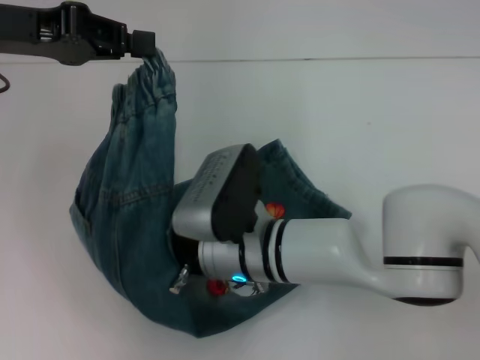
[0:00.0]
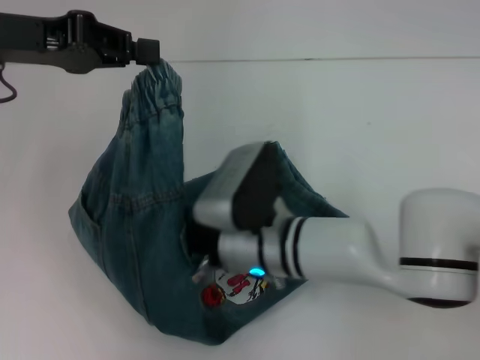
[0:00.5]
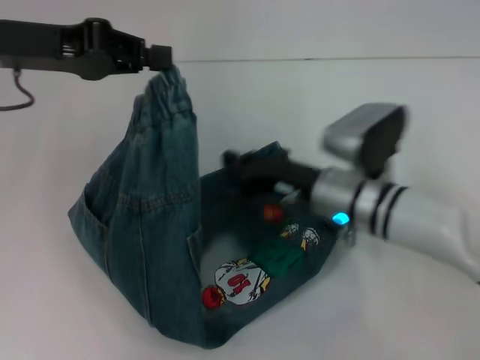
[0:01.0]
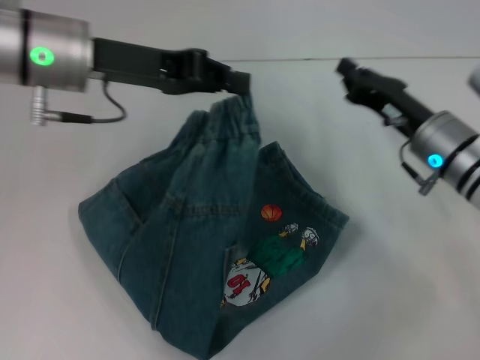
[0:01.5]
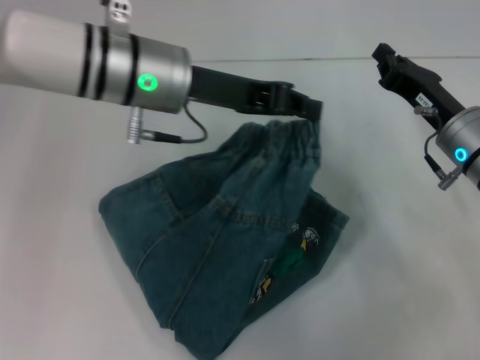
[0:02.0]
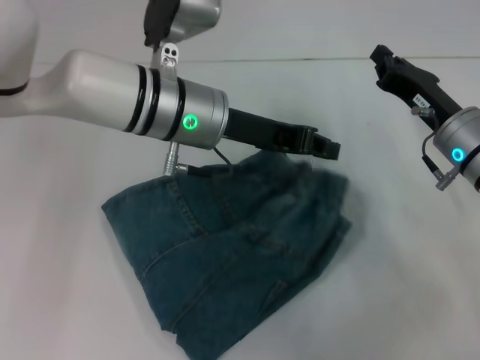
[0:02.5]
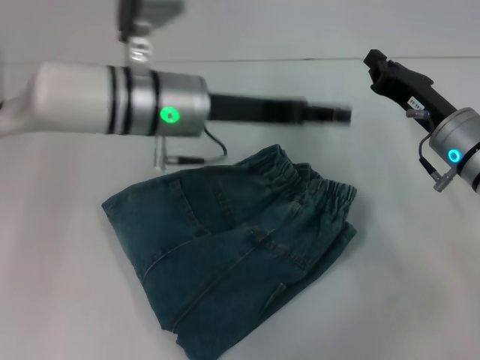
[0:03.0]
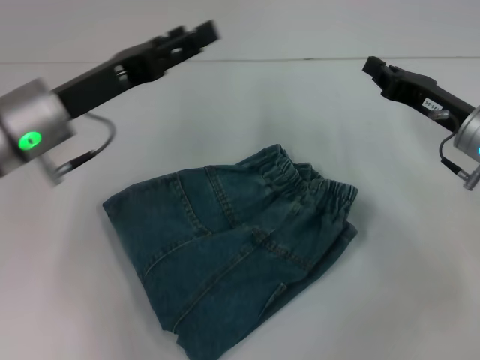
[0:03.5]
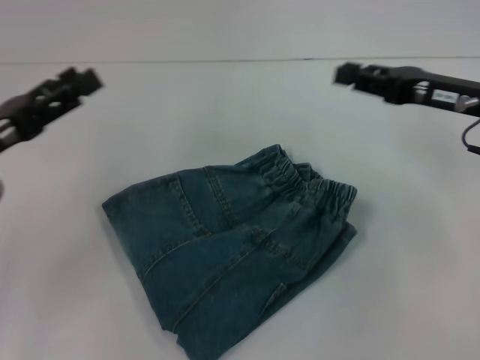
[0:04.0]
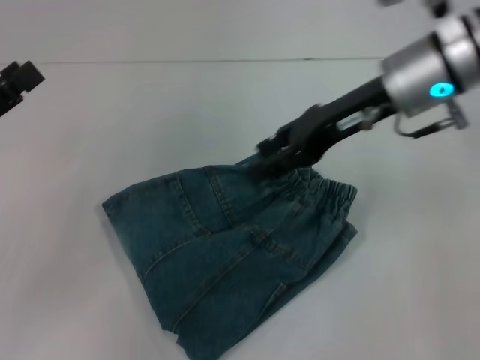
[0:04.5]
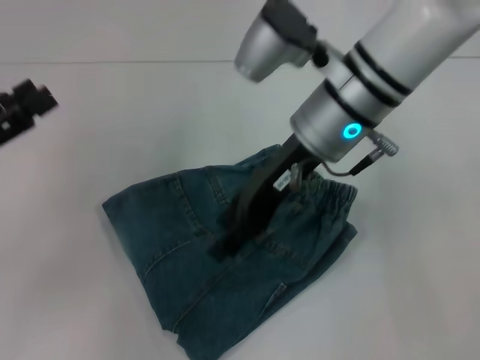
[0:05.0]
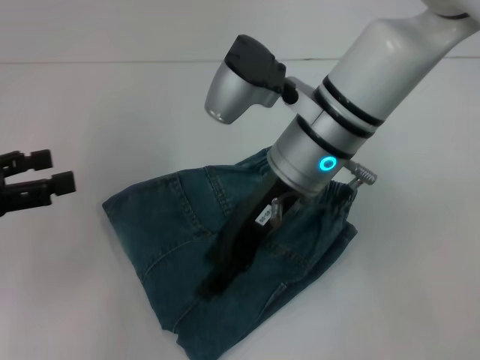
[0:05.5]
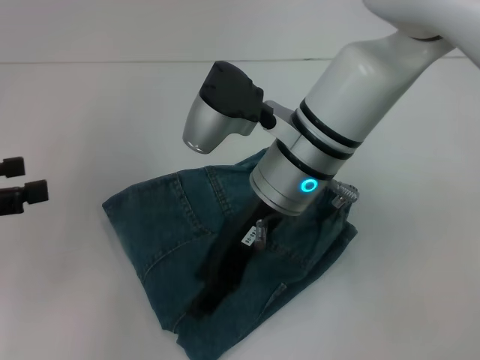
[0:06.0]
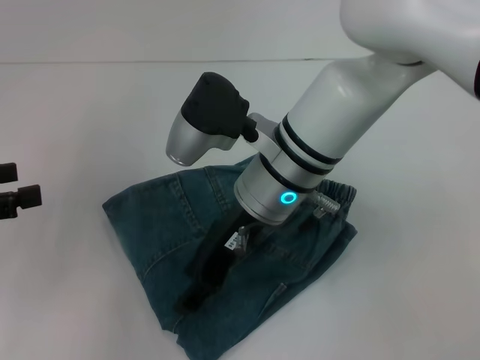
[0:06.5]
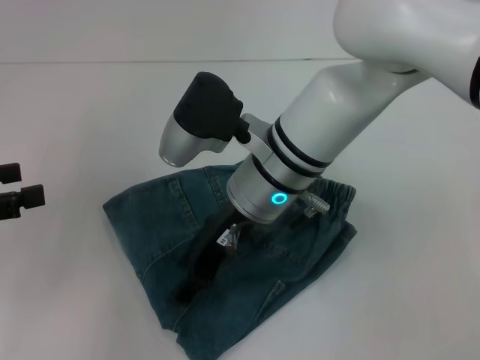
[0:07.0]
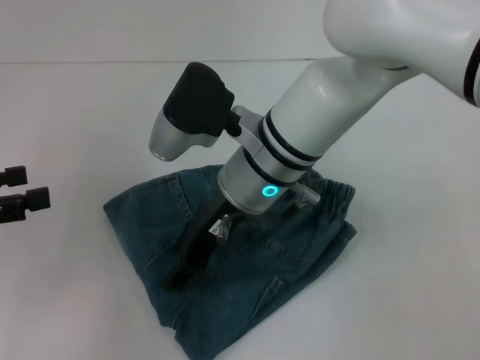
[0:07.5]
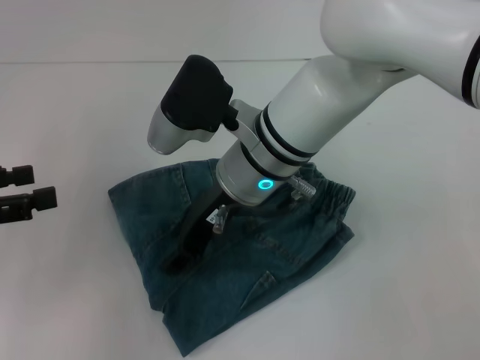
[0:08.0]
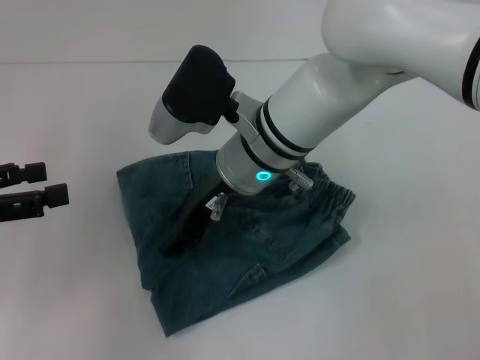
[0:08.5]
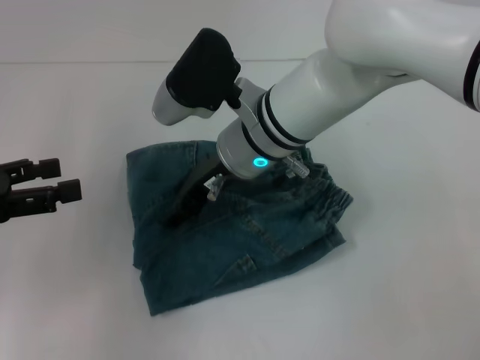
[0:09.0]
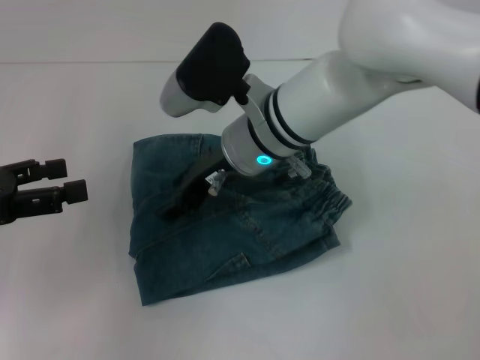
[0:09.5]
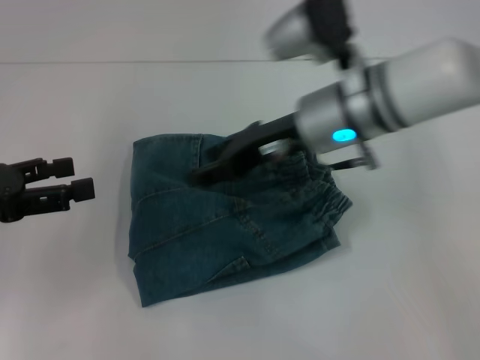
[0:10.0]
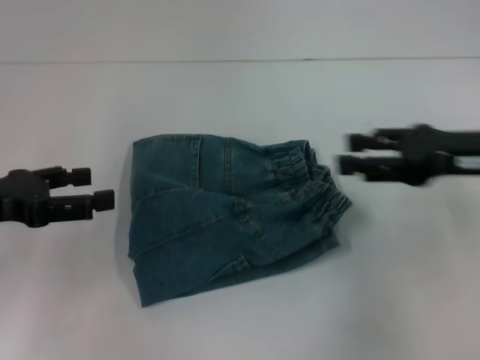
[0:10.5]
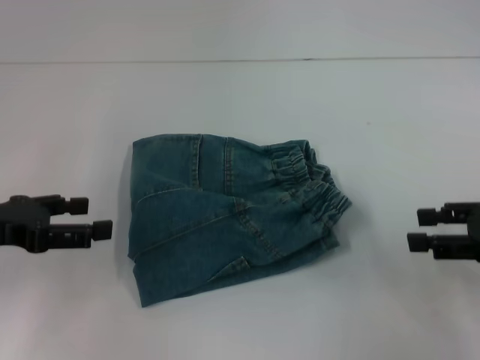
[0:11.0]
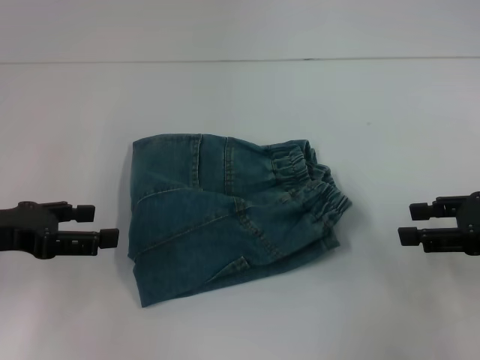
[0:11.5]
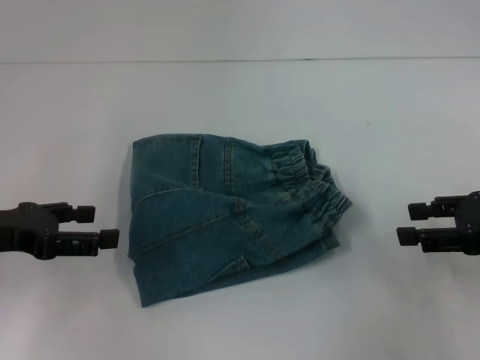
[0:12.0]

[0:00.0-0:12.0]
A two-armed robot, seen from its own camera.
Step, 0:01.0 to 0:02.5: Fold to the right with your left hand.
0:00.0 to 0:02.0: The two grippers go roughly 20 cm to the right.
0:02.0 to 0:04.0: The right gripper goes roughly 5 cm upward. Meanwhile the left gripper goes roughly 20 cm to the left and backward, and opens.
0:04.0 to 0:06.0: The left gripper travels to the left by roughly 5 cm; the right gripper moves to the left, roughly 25 cm, and opens.
0:08.0 to 0:10.0: The right gripper is displaced to the right by about 10 cm.
0:10.0 to 0:12.0: The right gripper is displaced to the right and backward by roughly 25 cm.

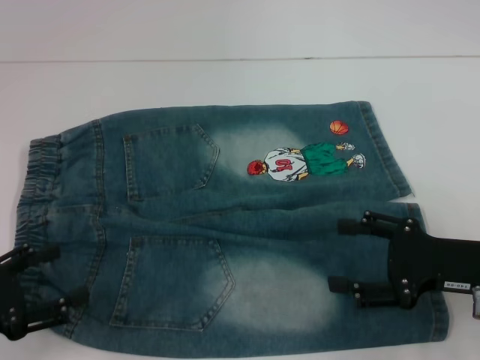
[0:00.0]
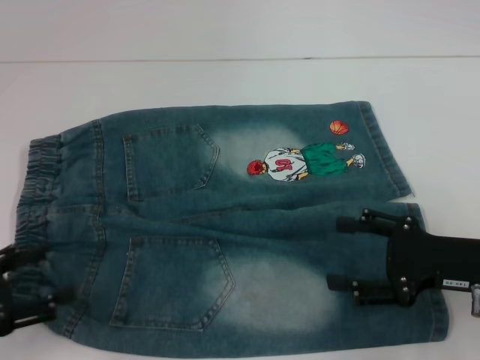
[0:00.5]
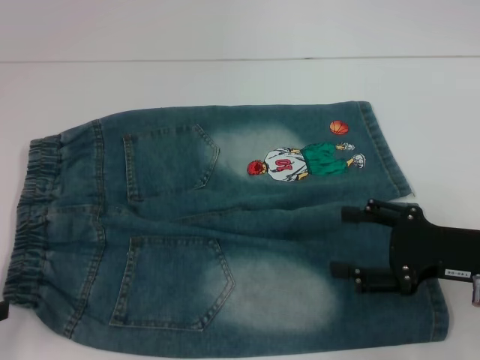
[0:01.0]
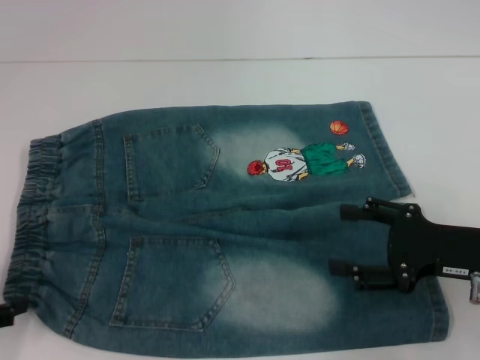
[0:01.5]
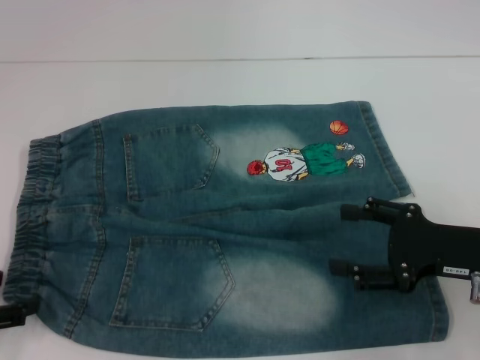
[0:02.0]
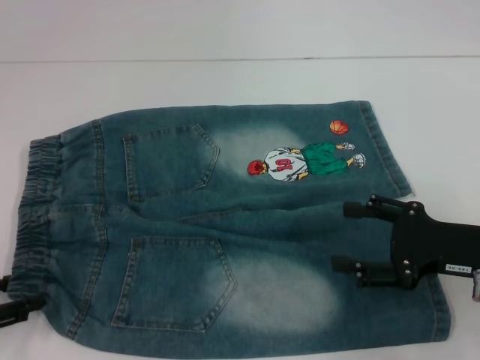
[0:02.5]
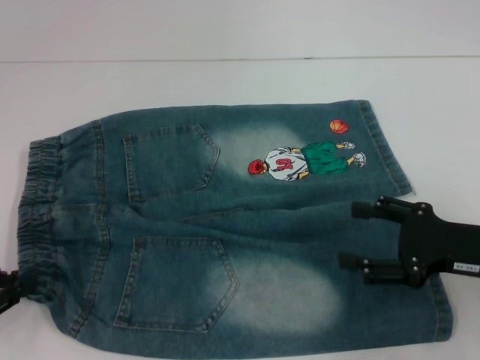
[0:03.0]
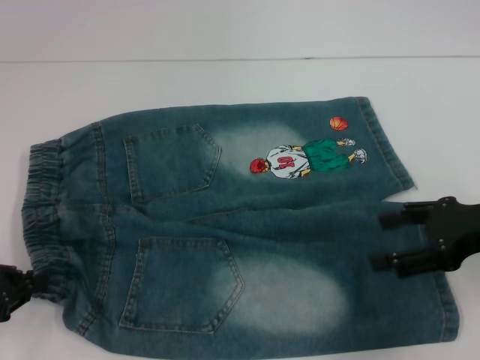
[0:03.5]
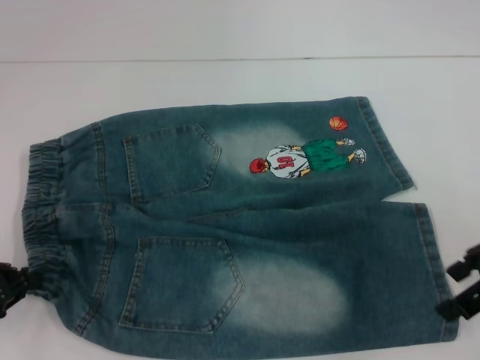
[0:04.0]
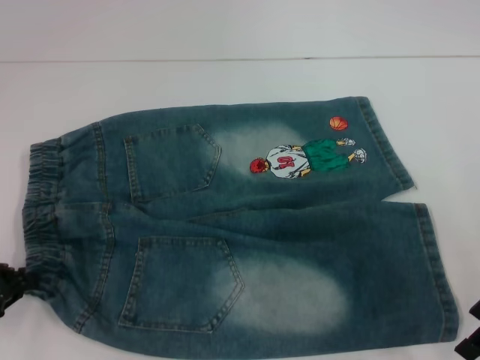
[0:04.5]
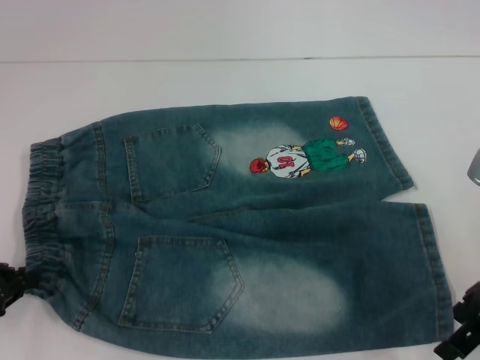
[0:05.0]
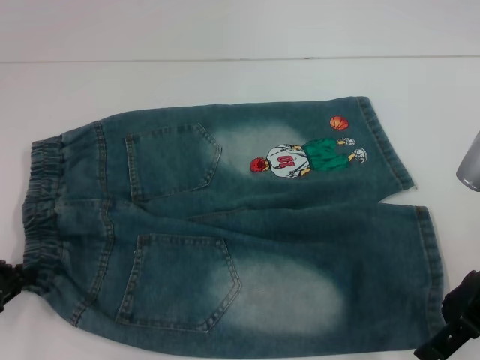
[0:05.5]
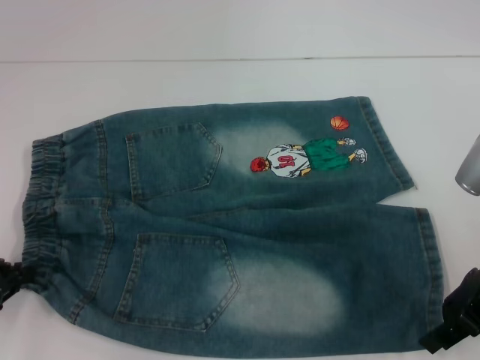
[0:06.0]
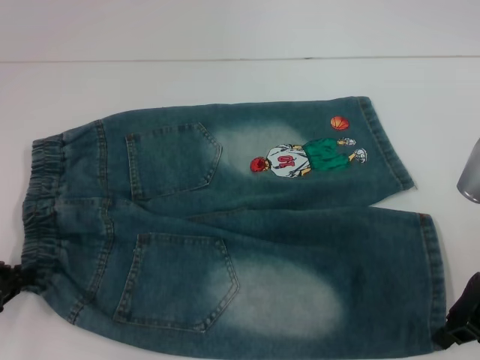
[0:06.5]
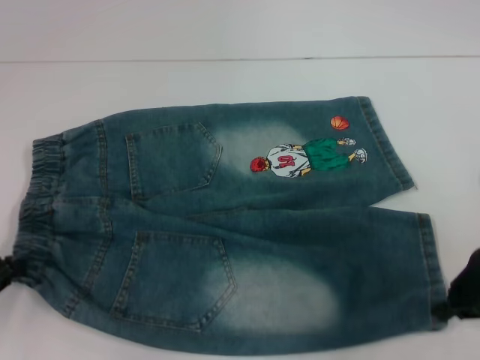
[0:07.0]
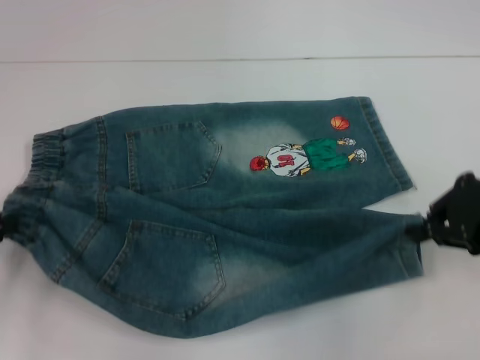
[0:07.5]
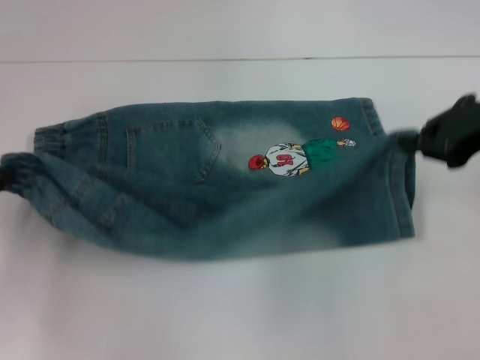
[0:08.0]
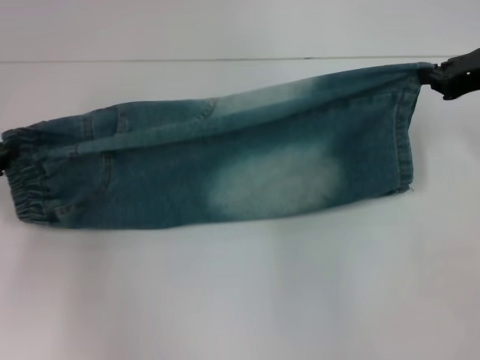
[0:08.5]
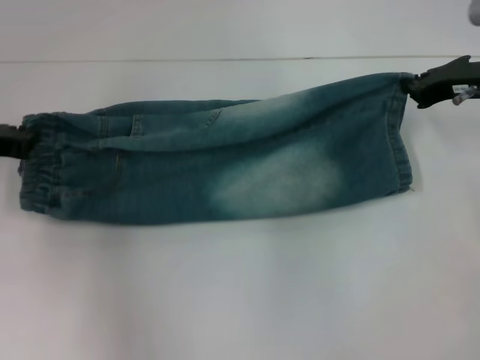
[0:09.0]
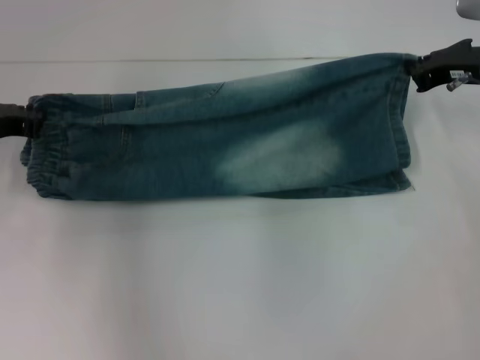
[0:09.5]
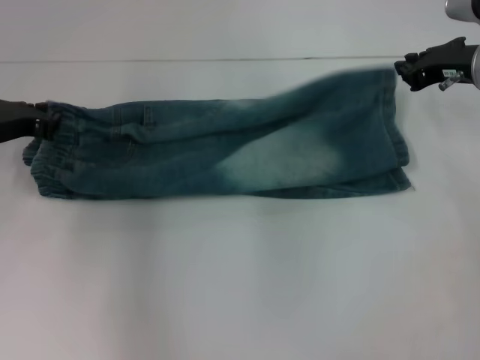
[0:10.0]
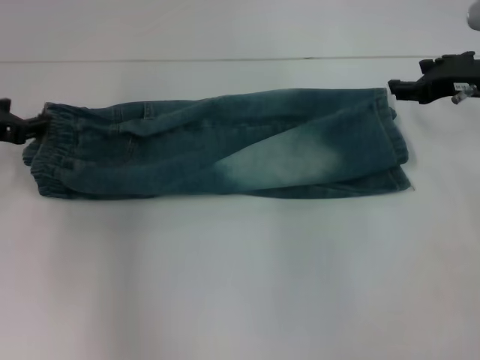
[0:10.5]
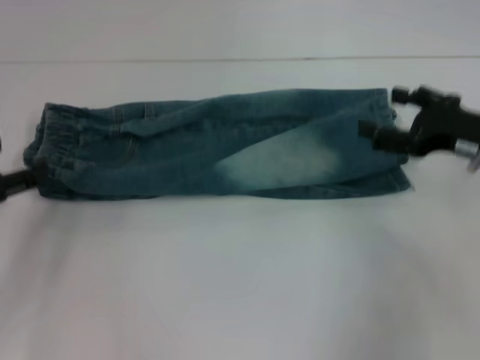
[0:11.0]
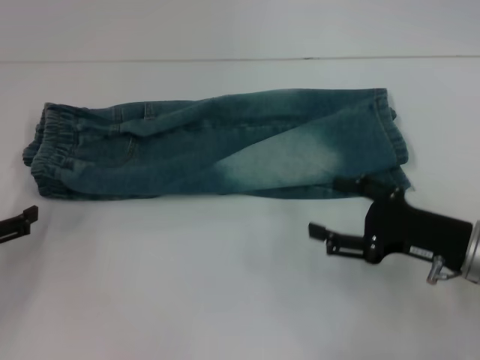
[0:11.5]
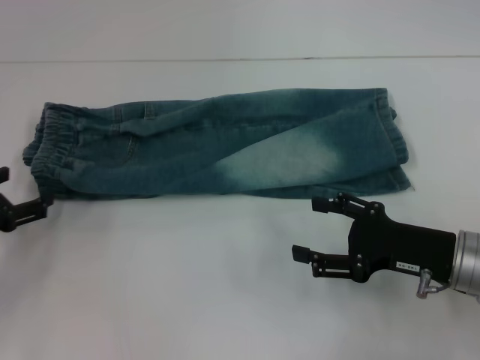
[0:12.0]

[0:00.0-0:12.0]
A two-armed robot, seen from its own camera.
Step, 0:00.0 to 0:03.0: Hold the lower left waistband with your left hand.
Step, 0:03.5 to 0:06.5: Grab the lower right pant leg with your right hand.
Step, 0:07.0 to 0:10.0: Fold upward with your right hand.
0:02.0 to 0:04.0: The left gripper closes; the right gripper goes approximately 10 cm upward.
0:04.0 to 0:06.0: The grippers make only small movements.
0:06.0 to 0:08.0: Both grippers travel together upward, roughly 5 cm. The right gripper closes.
0:08.0 to 0:10.0: The right gripper shifts about 10 cm forward and downward. The left gripper shifts approximately 10 cm forward and to the right.
0:10.0 to 0:12.0: The right gripper shifts roughly 20 cm backward and downward, and opens; the left gripper shifts approximately 10 cm backward and to the left, and opens up.

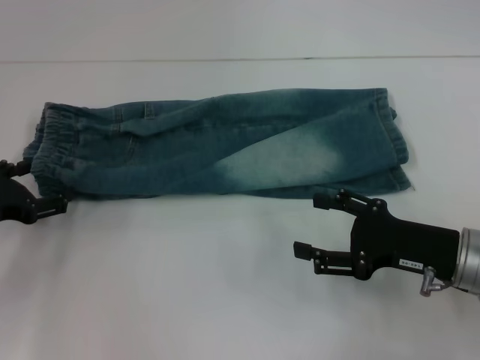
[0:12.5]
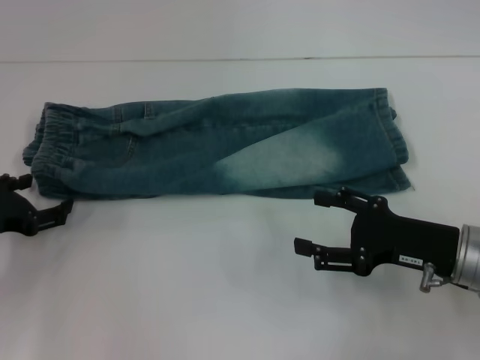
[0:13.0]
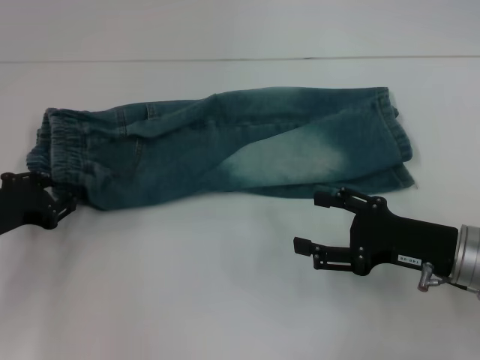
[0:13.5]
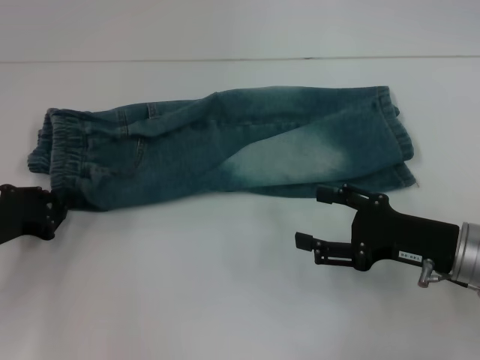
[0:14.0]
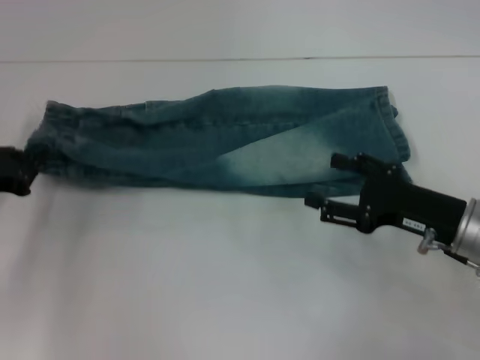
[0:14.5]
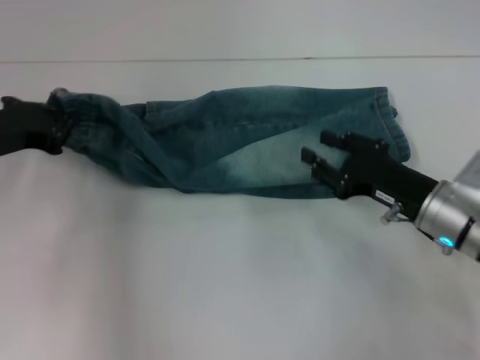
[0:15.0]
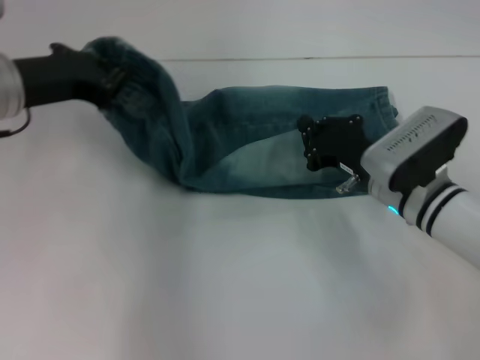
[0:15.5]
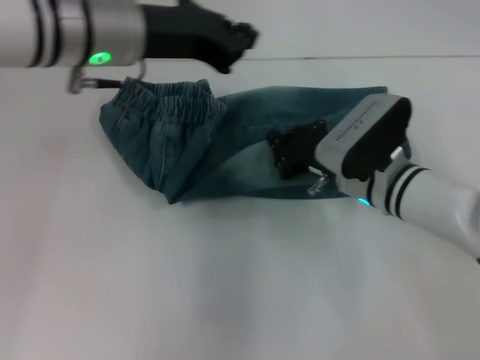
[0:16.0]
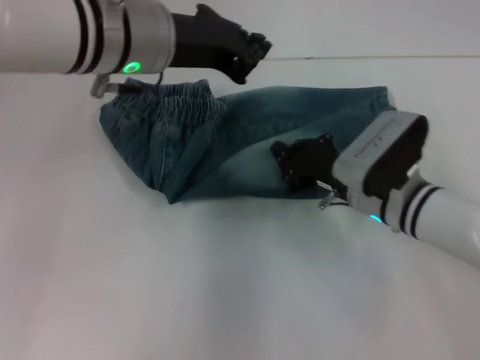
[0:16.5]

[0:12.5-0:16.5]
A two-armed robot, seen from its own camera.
0:12.5 to 0:14.5: The left gripper closes.
0:14.5 to 0:16.5: The right gripper shifts approximately 10 cm to the left and forward, and closes its fingers; the left gripper travels to the right and upward by approximately 25 cm.
